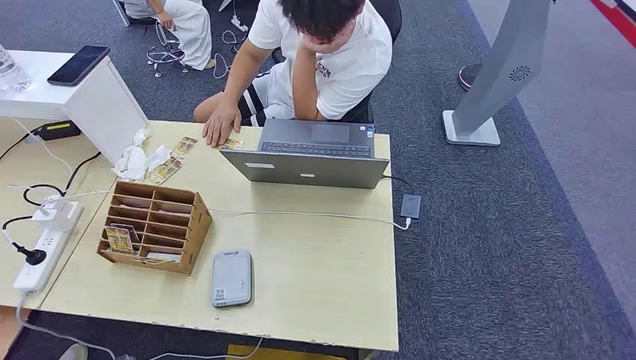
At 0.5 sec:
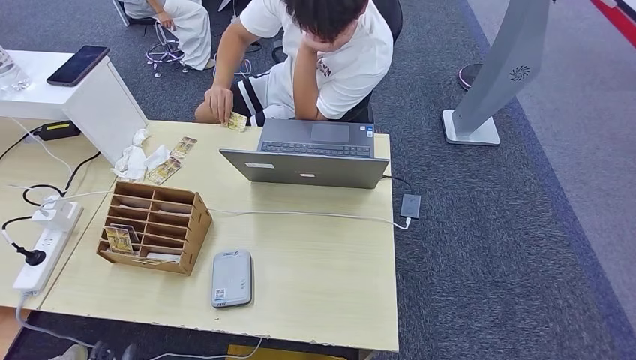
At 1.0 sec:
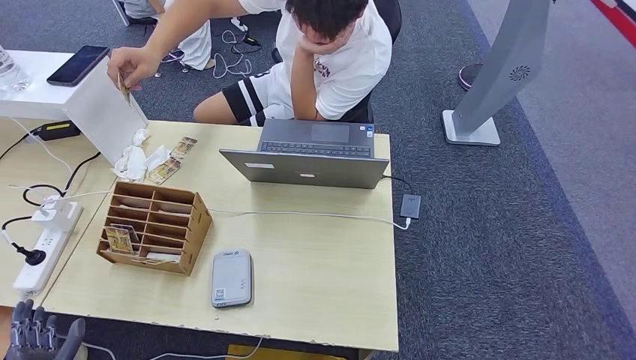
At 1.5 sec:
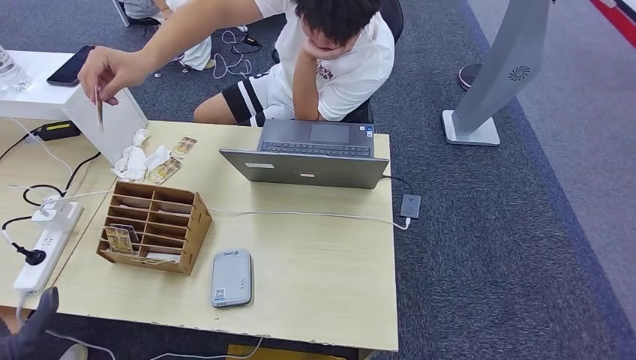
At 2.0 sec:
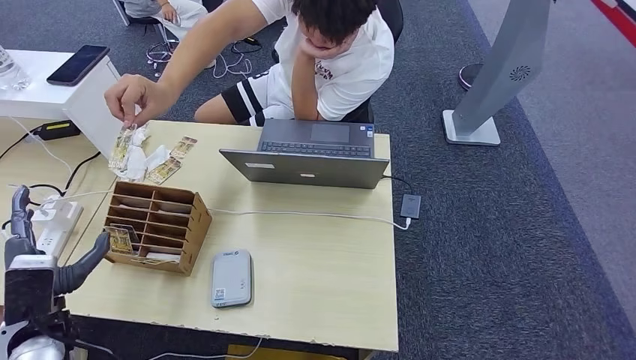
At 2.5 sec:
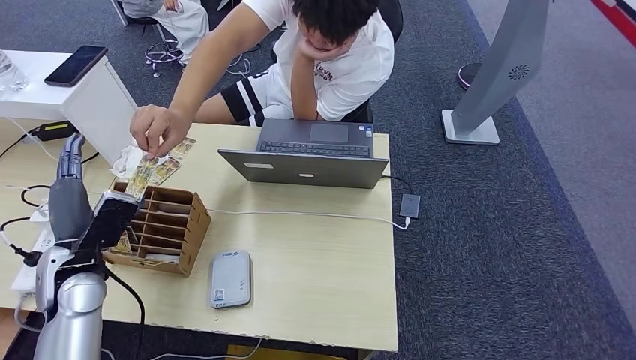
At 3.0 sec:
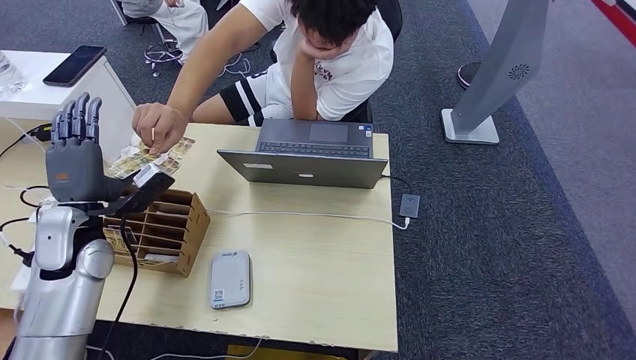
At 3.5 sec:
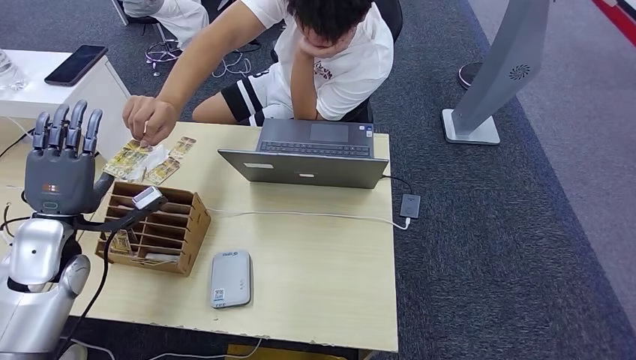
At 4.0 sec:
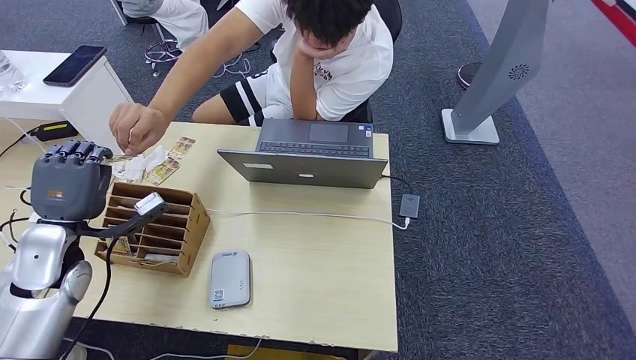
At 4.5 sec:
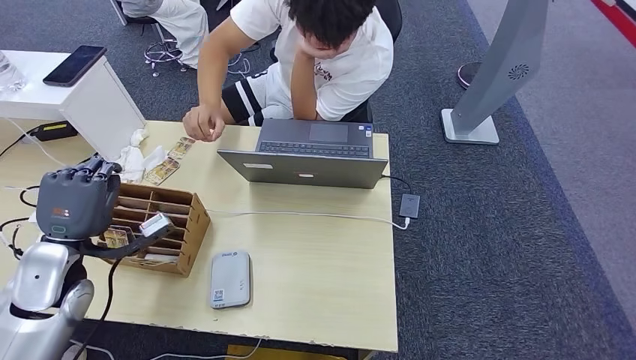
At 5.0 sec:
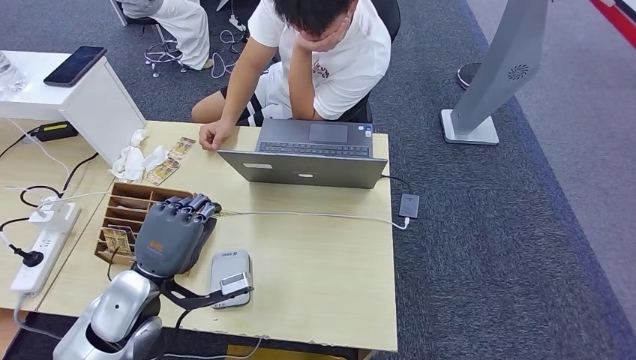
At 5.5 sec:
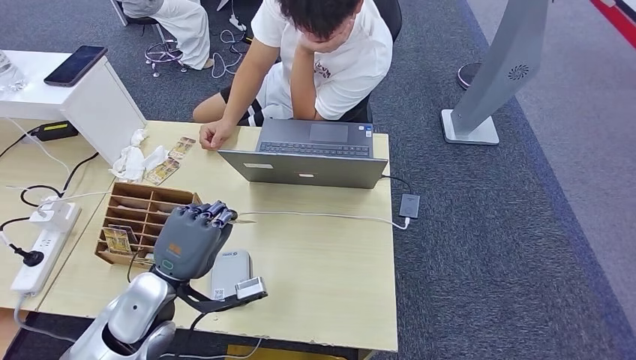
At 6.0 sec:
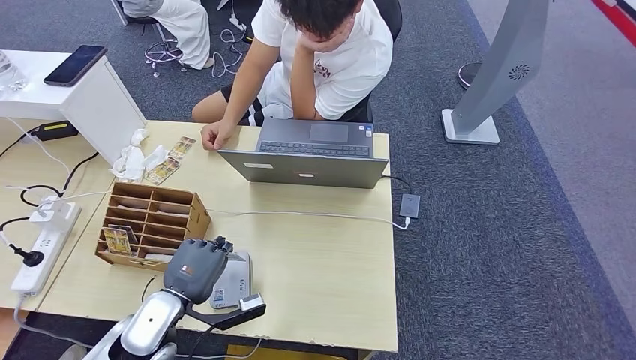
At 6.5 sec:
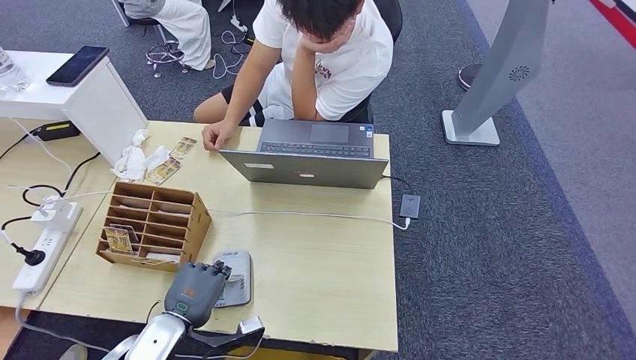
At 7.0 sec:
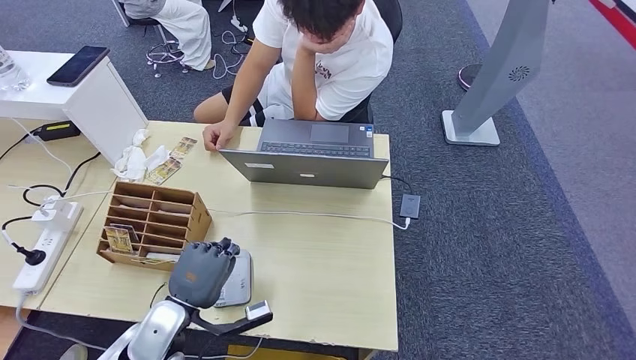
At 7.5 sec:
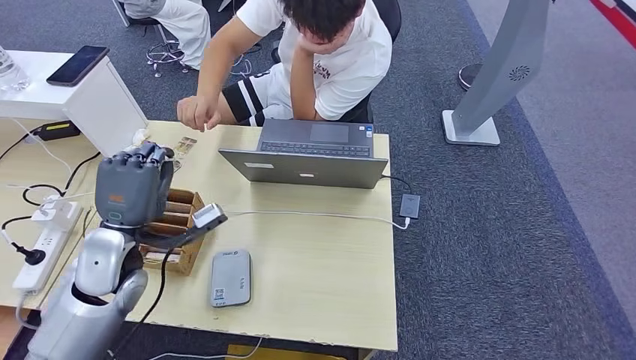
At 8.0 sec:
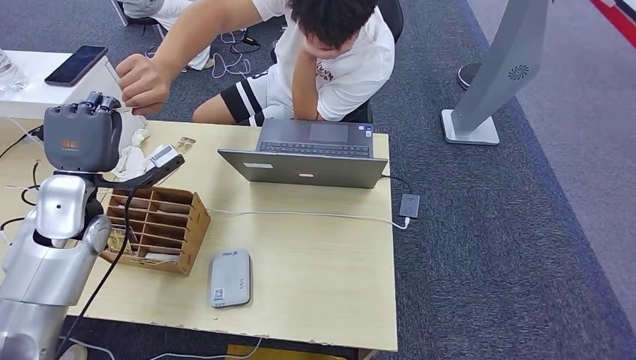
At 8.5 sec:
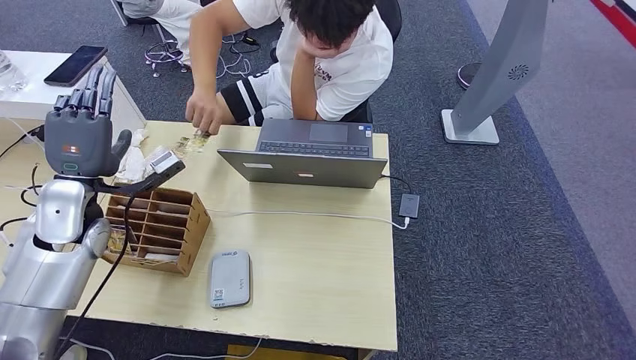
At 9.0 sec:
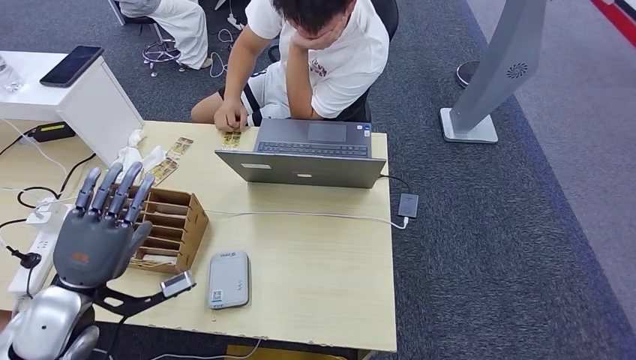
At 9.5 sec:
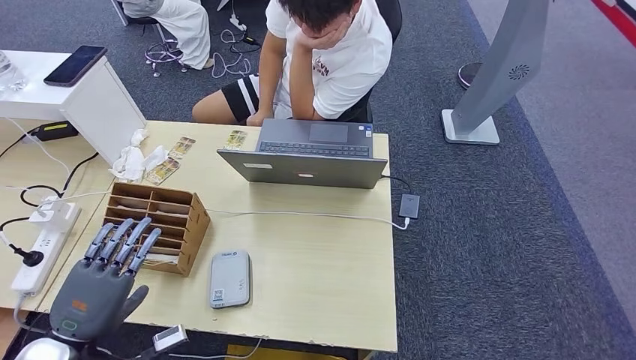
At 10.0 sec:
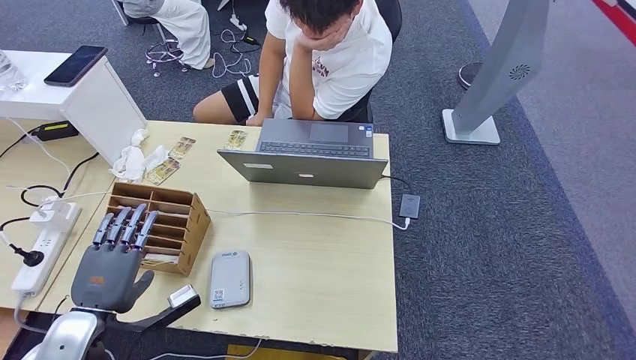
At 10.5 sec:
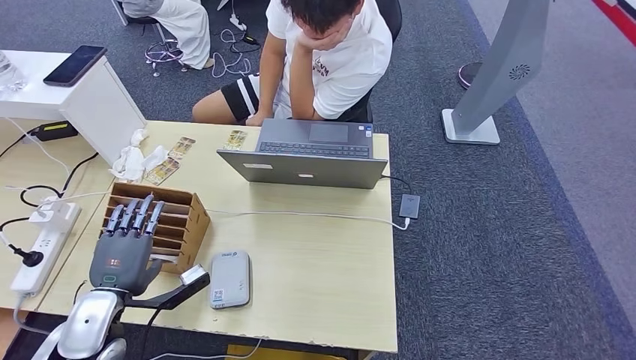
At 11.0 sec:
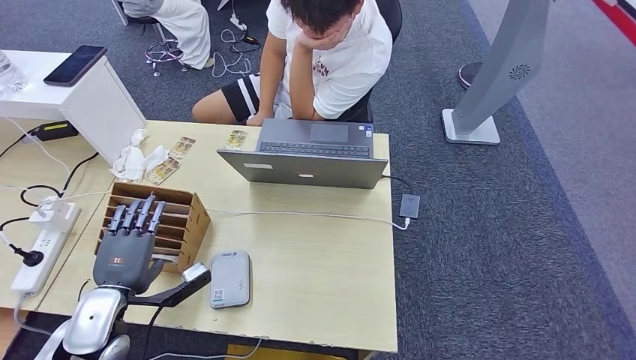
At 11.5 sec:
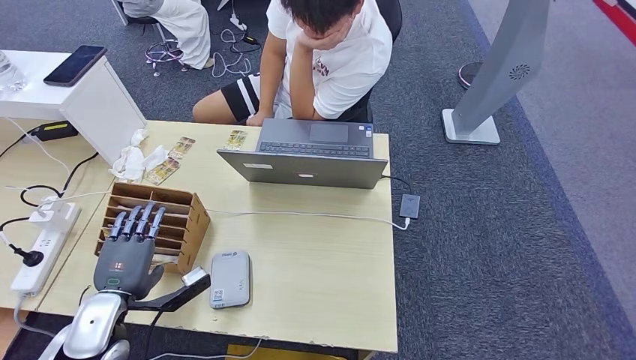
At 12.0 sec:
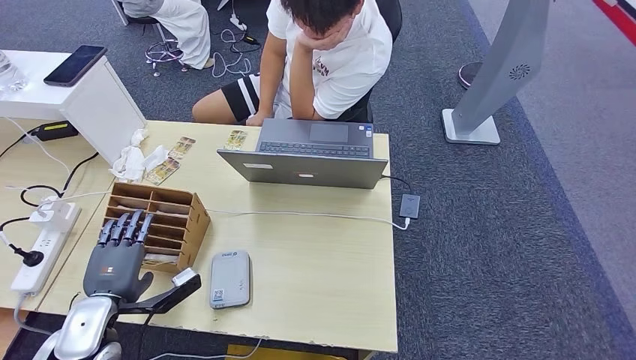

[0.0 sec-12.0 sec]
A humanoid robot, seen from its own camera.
Step, 0.0 sec to 3.5 sec: Take the ID card from the person's hand.
Step, 4.0 sec to 7.0 sec: Place the ID card on the card reader.
Step, 7.5 sec to 9.5 sec: Hand the ID card to the person.
2.0 sec to 4.0 sec: The left hand is displaced forward and upward by some 10 cm.
8.0 sec to 10.0 sec: The left hand travels backward and downward by roughly 20 cm.
10.0 sec to 12.0 sec: The hands make only small movements.

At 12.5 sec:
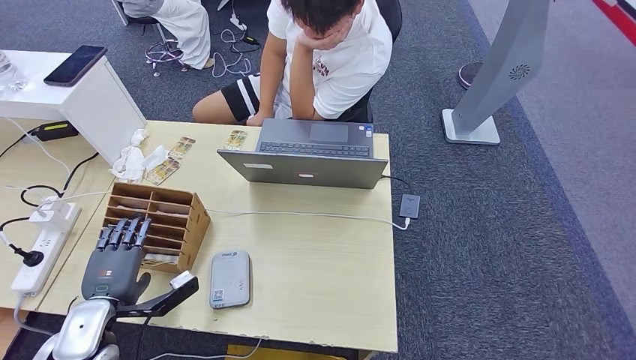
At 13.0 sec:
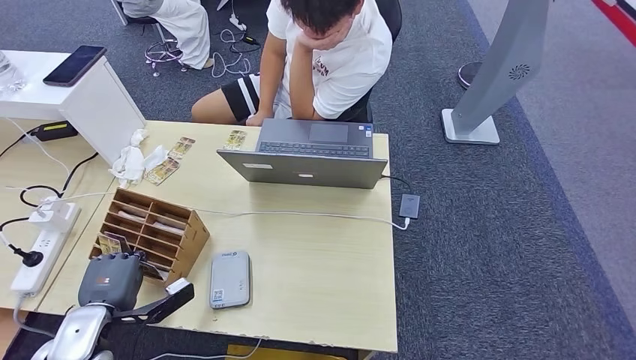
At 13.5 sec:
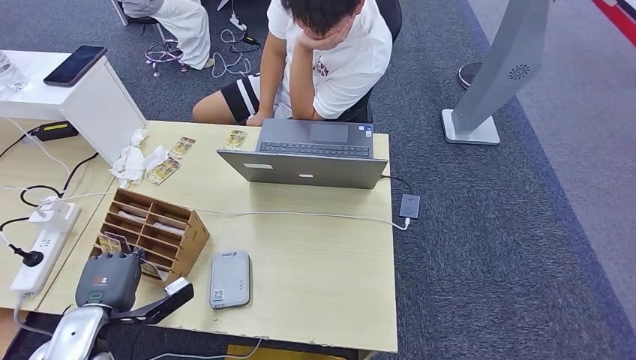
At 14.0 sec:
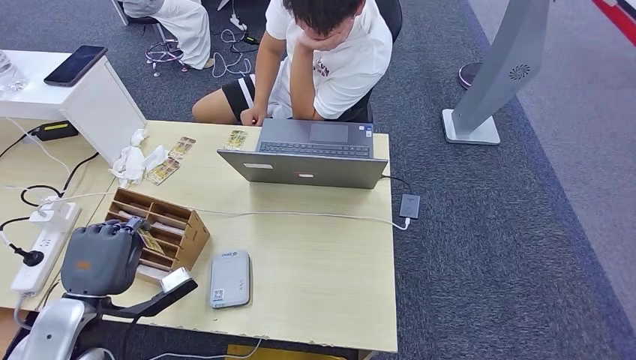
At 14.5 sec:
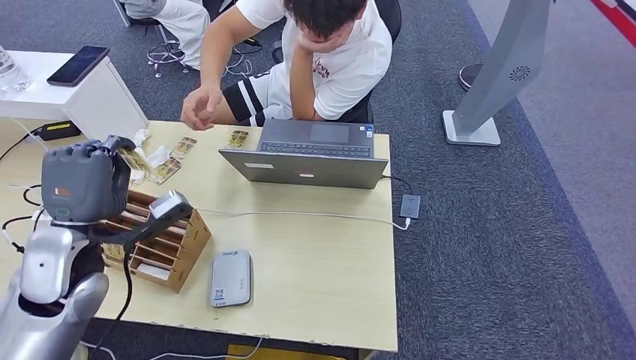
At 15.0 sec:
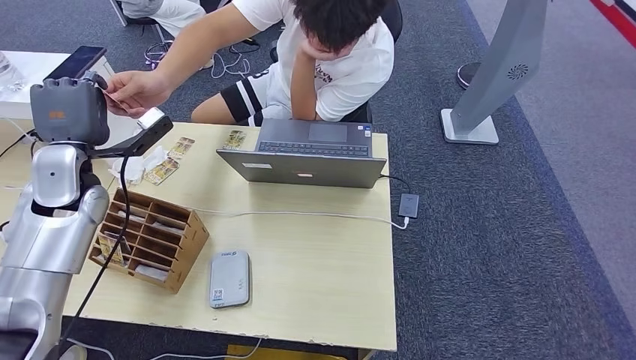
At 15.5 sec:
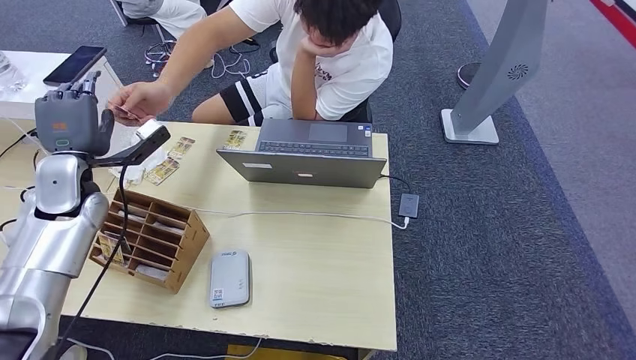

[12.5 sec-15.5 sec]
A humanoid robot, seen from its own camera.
Step, 14.5 sec to 15.5 sec: Hand the room key to the person.
12.5 sec to 14.0 sec: The left hand moves upward, some 5 cm.
